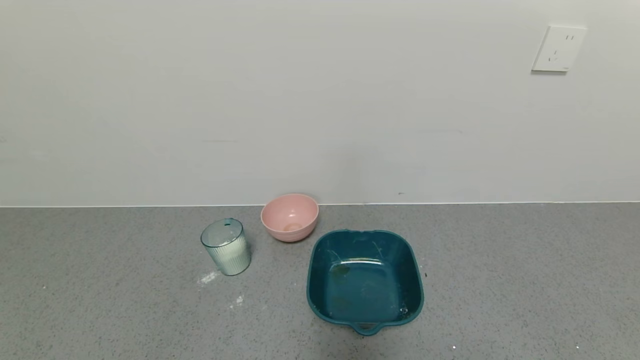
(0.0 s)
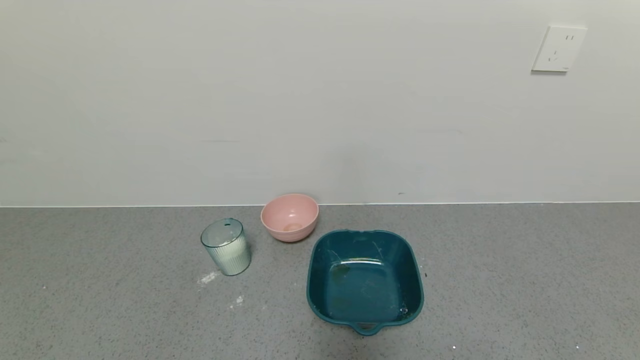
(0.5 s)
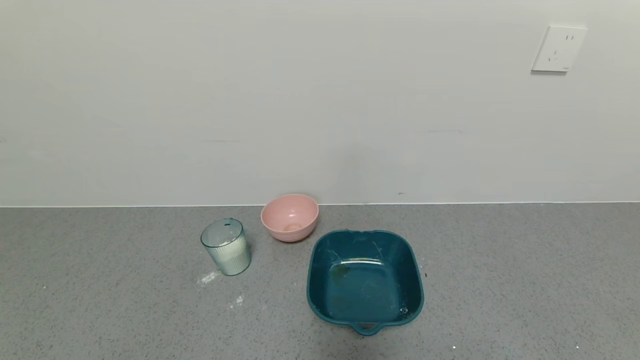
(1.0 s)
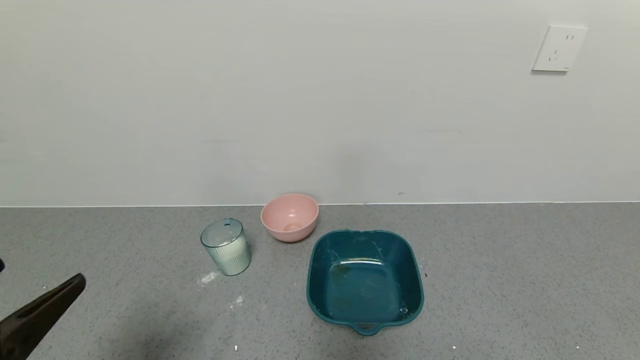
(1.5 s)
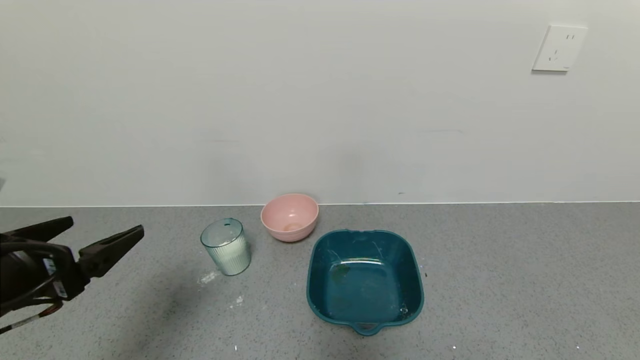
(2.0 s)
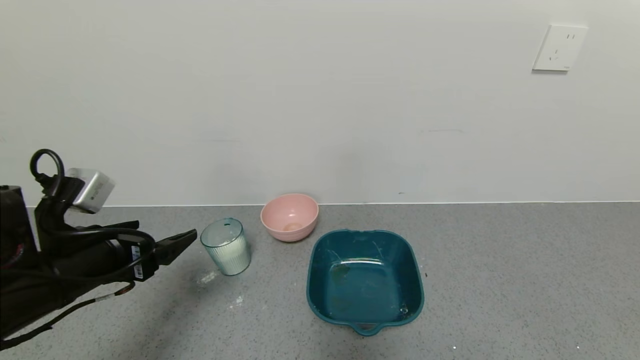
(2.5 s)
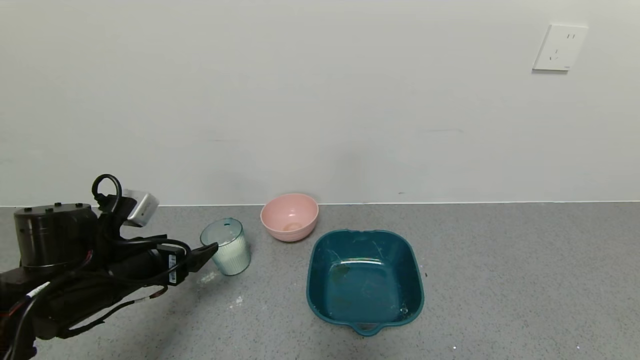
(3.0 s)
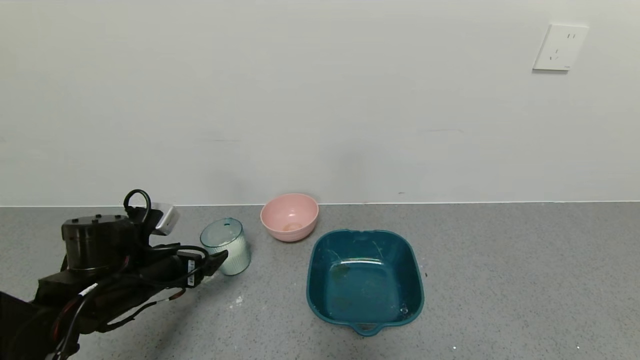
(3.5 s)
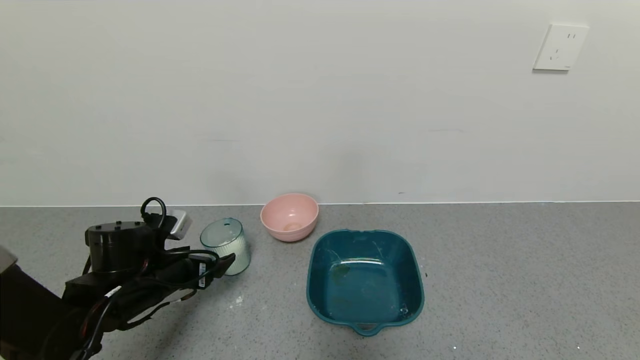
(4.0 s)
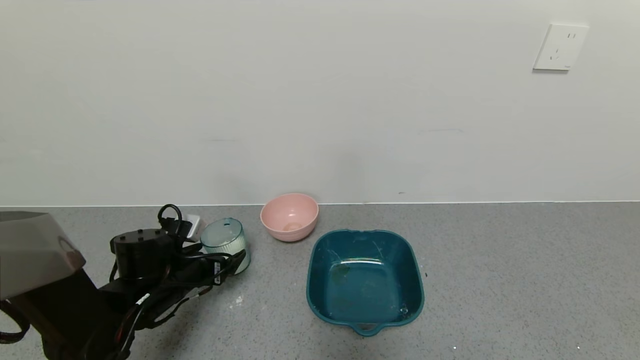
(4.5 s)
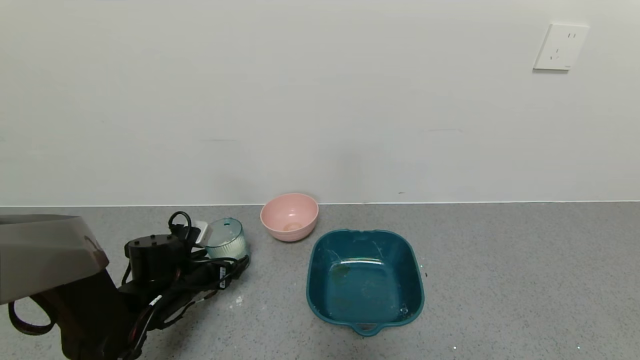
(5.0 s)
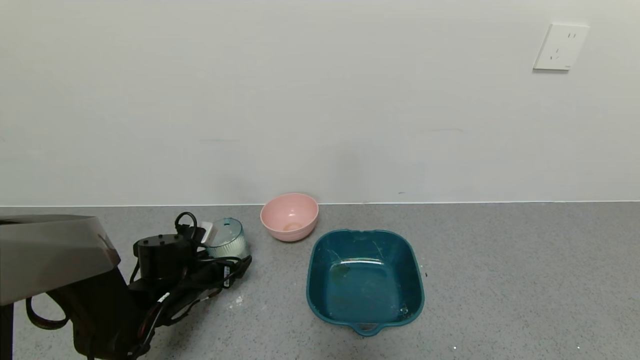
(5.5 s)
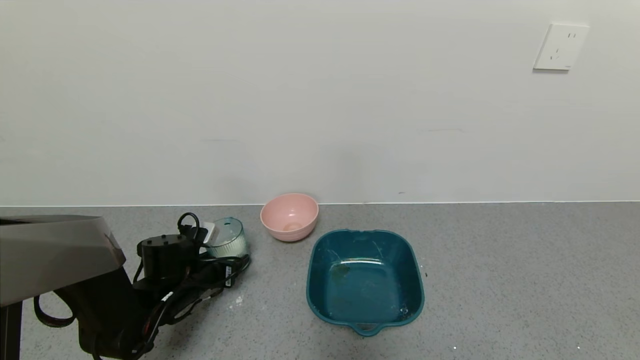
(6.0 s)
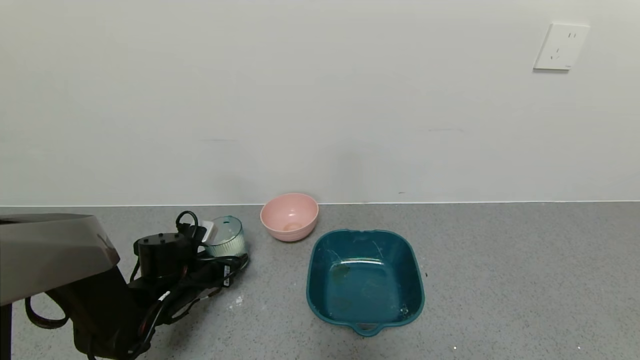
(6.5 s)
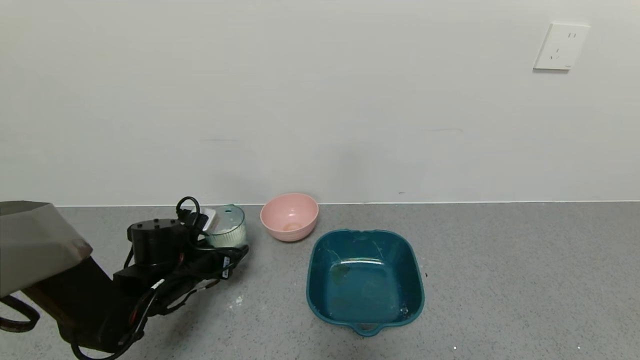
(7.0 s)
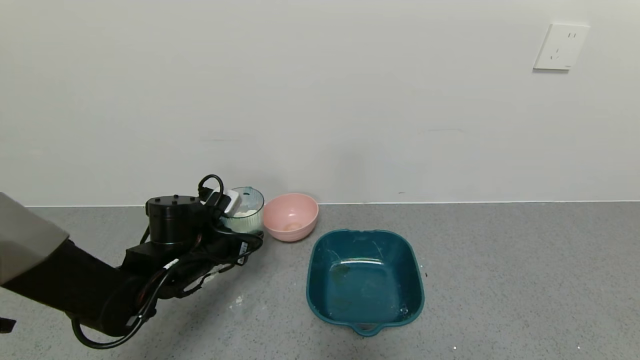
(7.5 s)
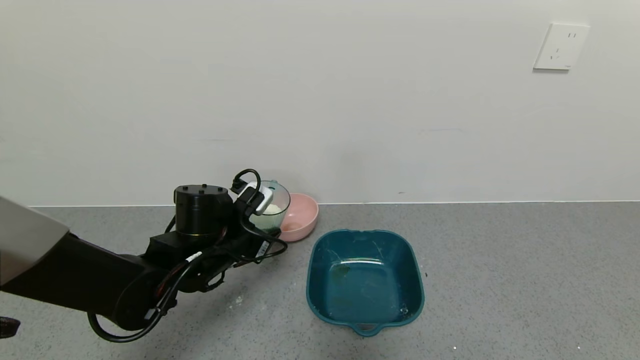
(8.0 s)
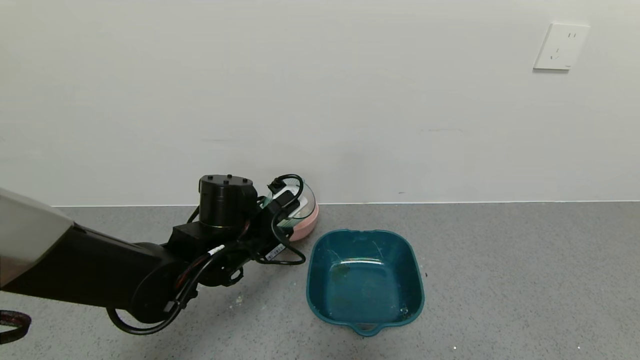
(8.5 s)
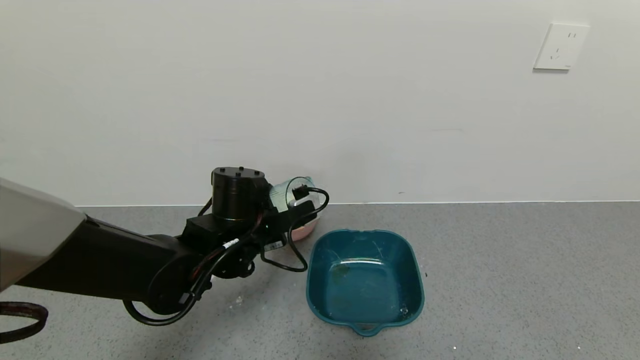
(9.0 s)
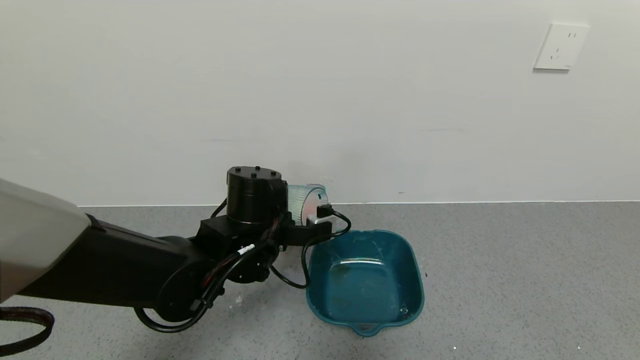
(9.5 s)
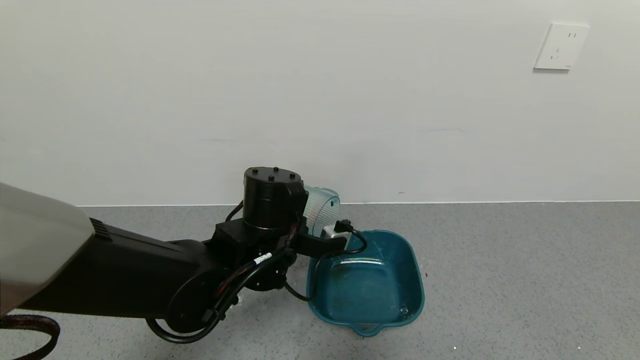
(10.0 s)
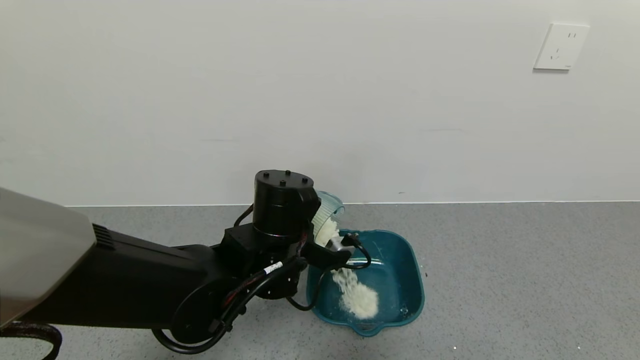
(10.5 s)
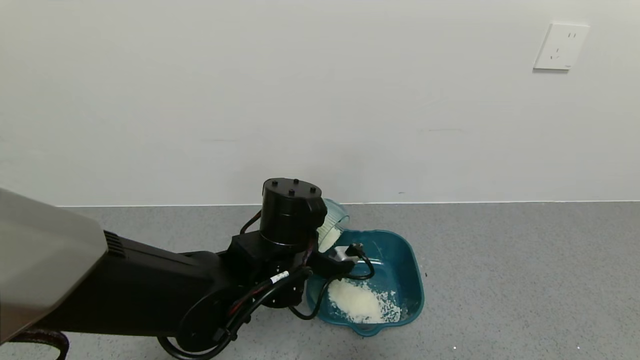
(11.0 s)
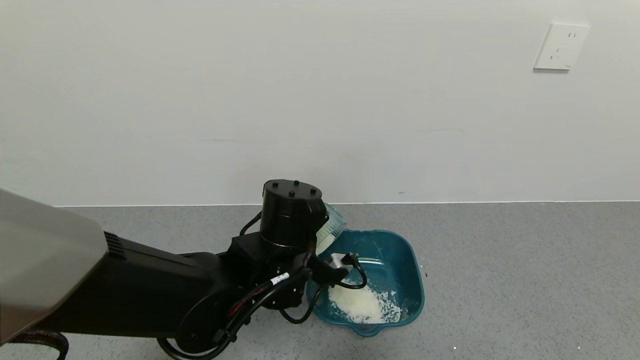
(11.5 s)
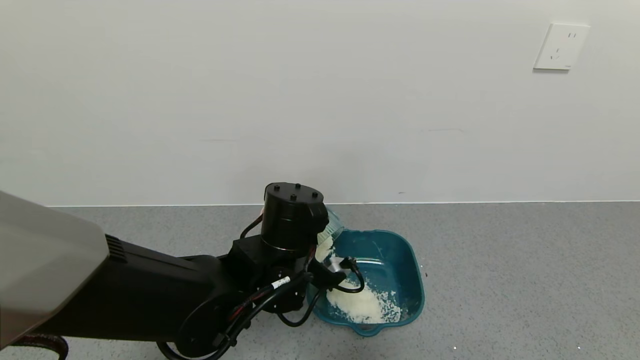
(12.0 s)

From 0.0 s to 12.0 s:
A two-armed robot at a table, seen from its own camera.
Task of the whole recording: use a gripper to pick up the cup and pour the powder into a bowl or tray.
Step, from 0.0 s to 8.0 s: Pick up blue cup filled with milk powder with left gripper.
From 0.0 s to 2.0 s: The left gripper moves forward and upward, approximately 20 cm.
From 2.0 s to 4.0 s: The left gripper shifts some 20 cm downward and forward.
From 4.0 s to 6.0 s: The left gripper shifts roughly 5 cm downward, and closes.
From 6.0 s to 8.0 s: The left gripper goes some 15 cm upward and to the right.
From 8.0 s to 10.0 s: The left gripper heads to the right, covering some 10 cm.

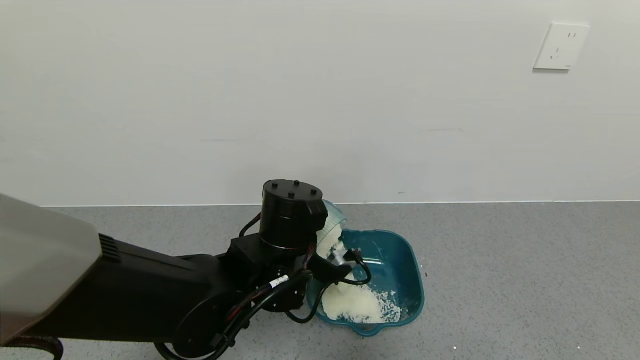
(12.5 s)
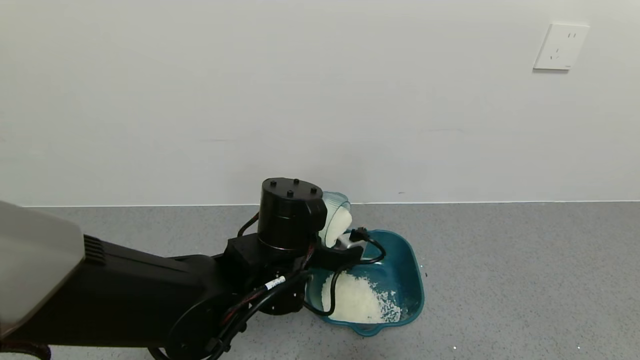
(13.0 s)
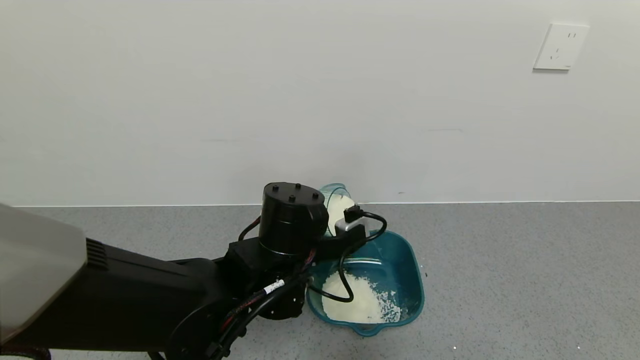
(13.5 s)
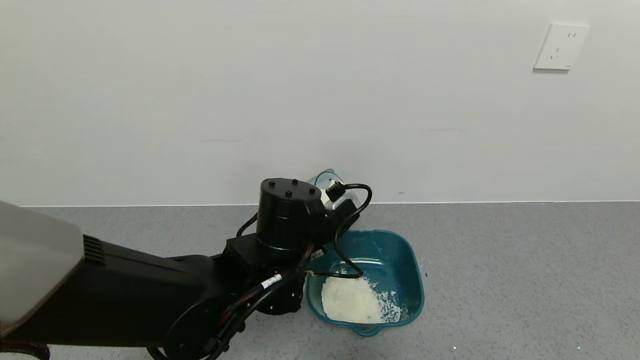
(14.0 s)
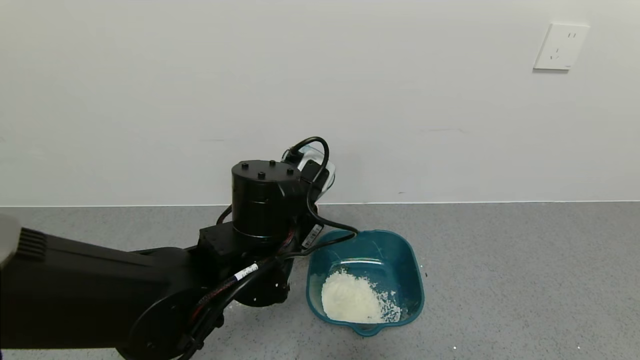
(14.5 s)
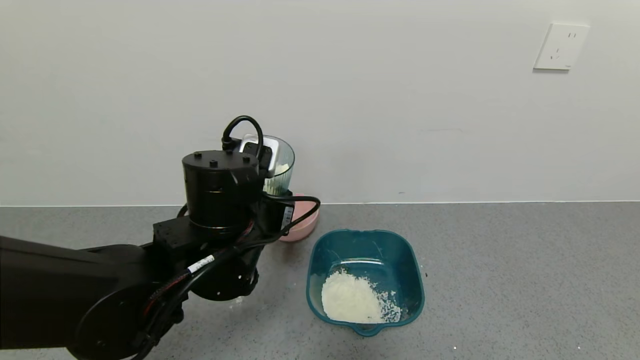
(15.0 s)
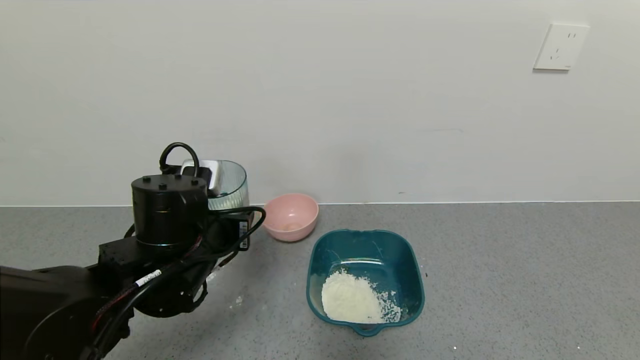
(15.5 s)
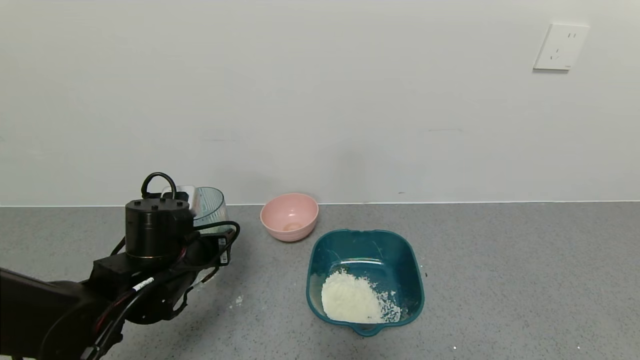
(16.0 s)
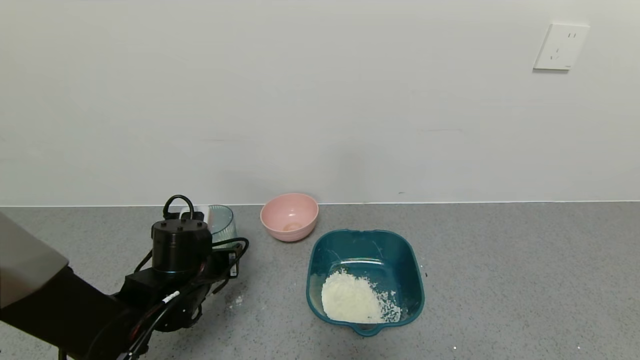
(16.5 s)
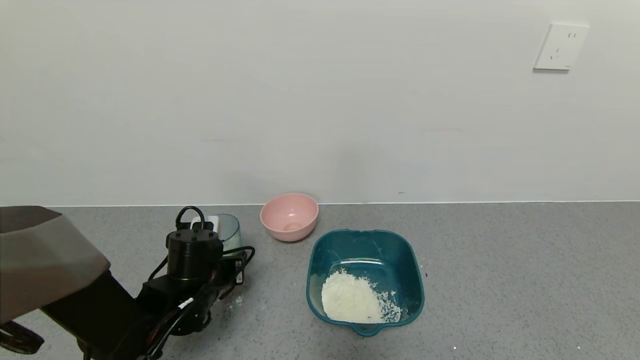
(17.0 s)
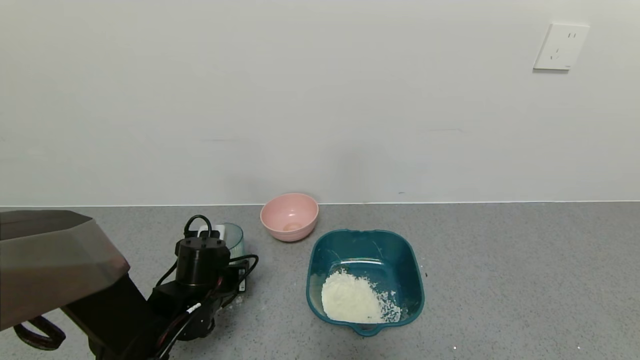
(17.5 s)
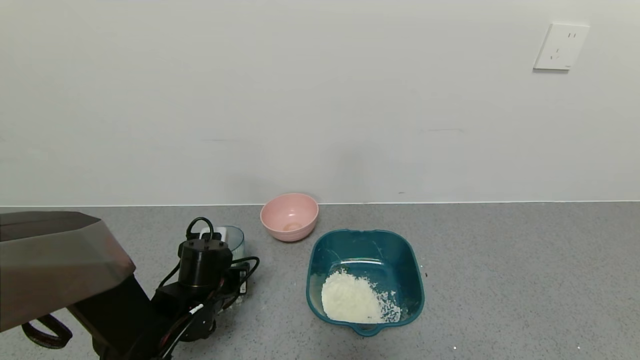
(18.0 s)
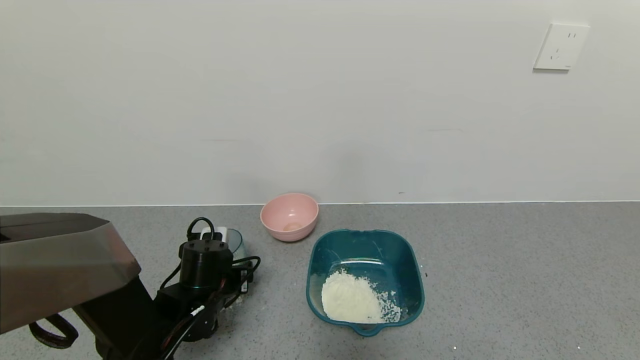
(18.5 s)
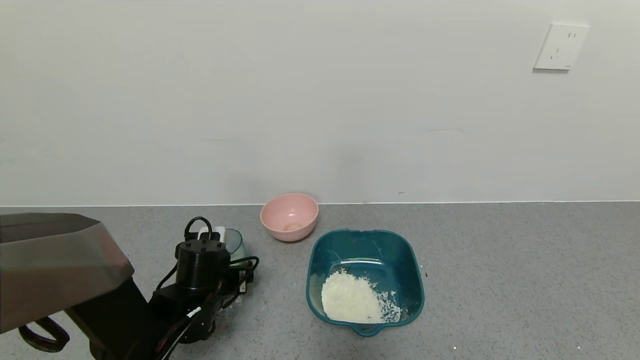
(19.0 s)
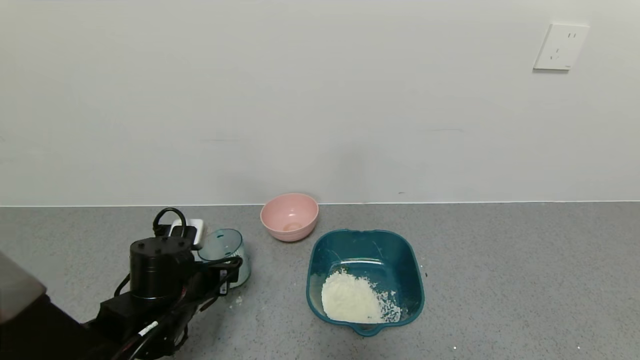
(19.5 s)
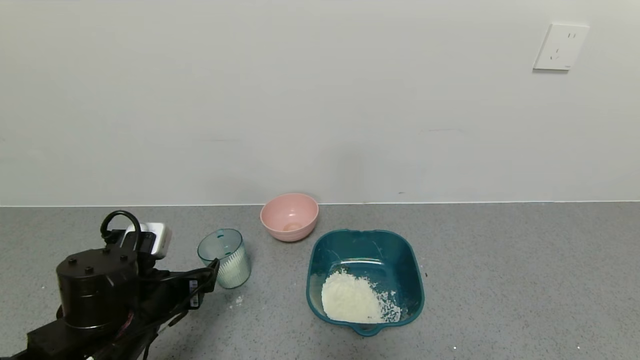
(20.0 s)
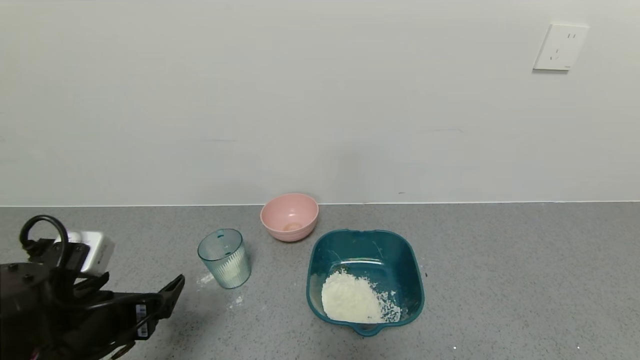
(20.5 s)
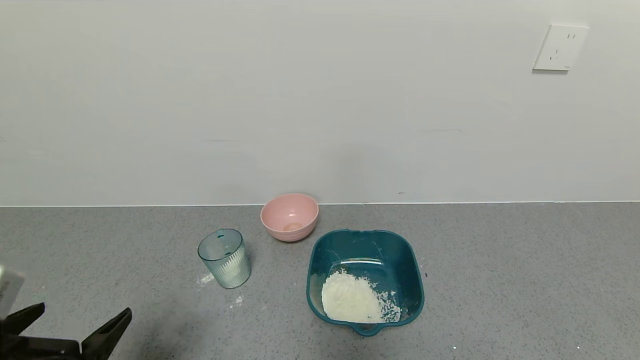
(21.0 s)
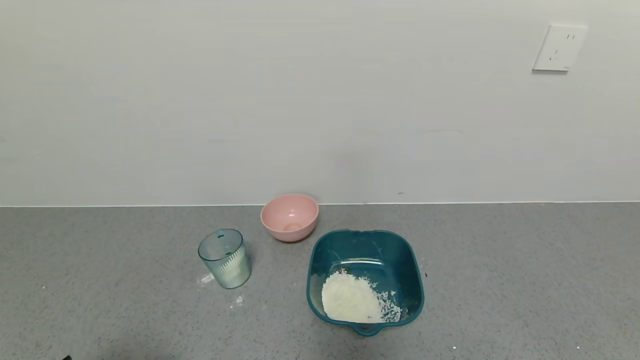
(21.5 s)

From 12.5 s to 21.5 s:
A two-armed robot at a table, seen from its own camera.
Task of the whole recording: use a gripper to pick up the cup and pour the powder into a bowl or tray.
Step, from 14.5 s to 19.0 s: Place blue cup with milk powder on the table with left gripper.
From 14.5 s to 17.0 s: The left gripper moves to the left and downward, roughly 20 cm.
From 17.0 s to 19.5 s: The left gripper opens up.
From 19.5 s to 21.5 s: The left gripper heads backward, covering roughly 20 cm.
